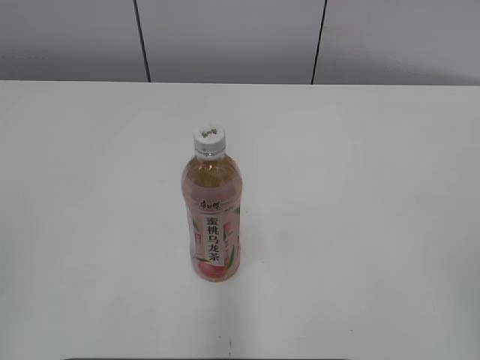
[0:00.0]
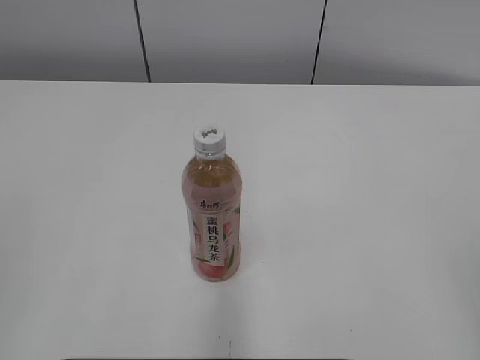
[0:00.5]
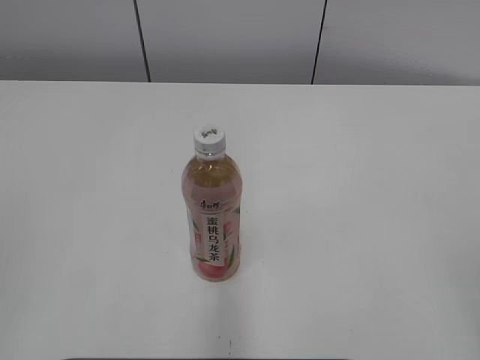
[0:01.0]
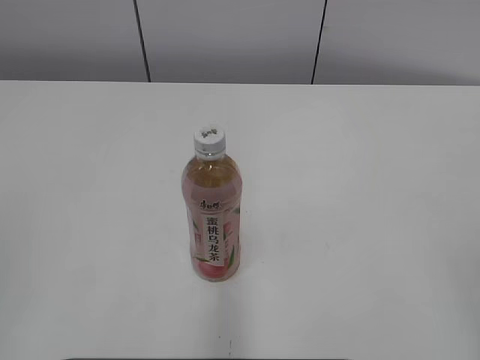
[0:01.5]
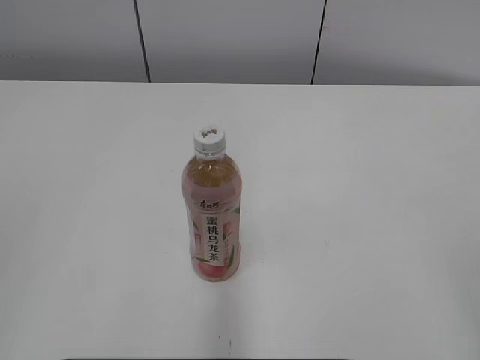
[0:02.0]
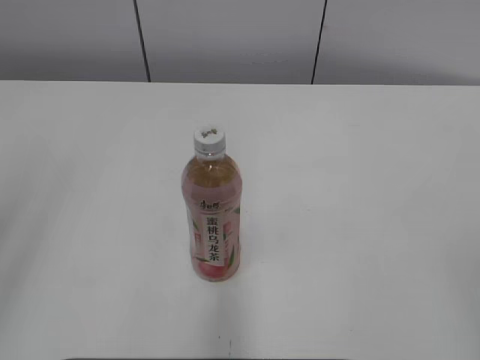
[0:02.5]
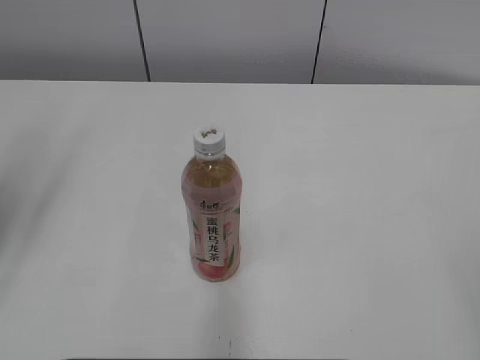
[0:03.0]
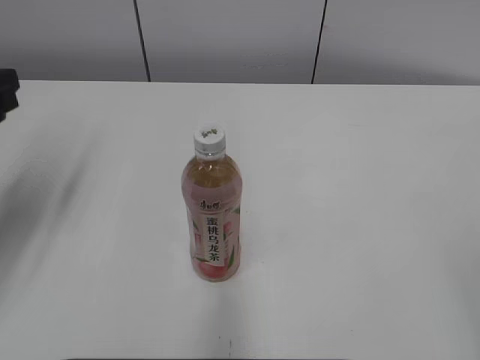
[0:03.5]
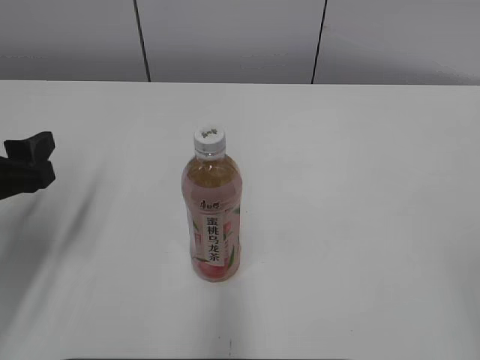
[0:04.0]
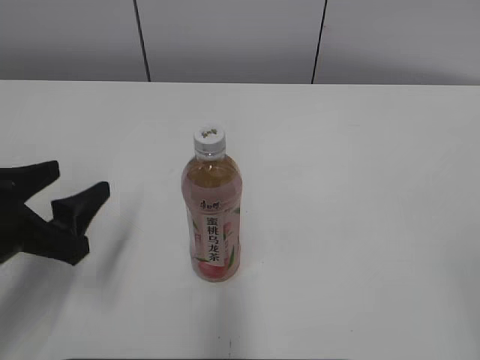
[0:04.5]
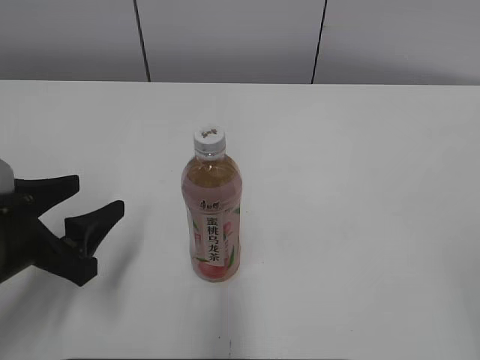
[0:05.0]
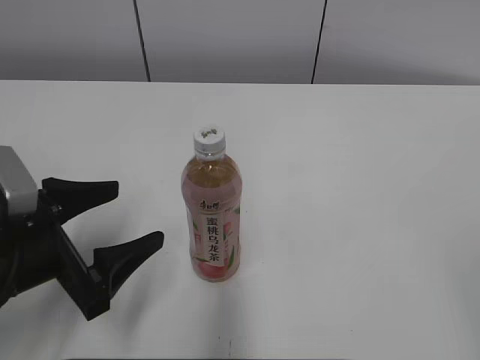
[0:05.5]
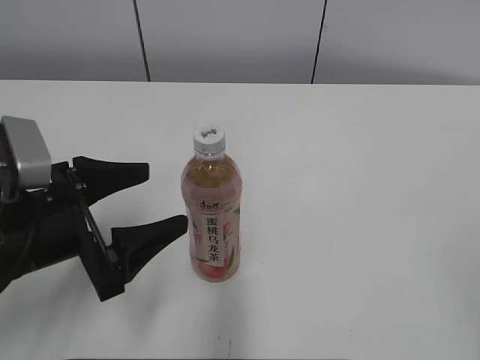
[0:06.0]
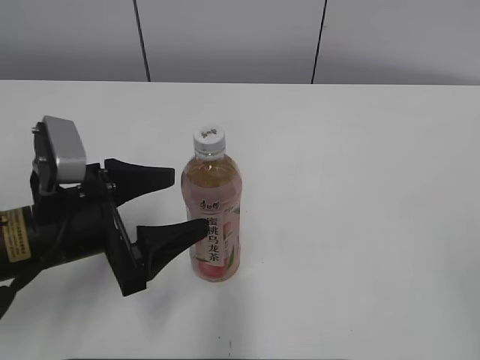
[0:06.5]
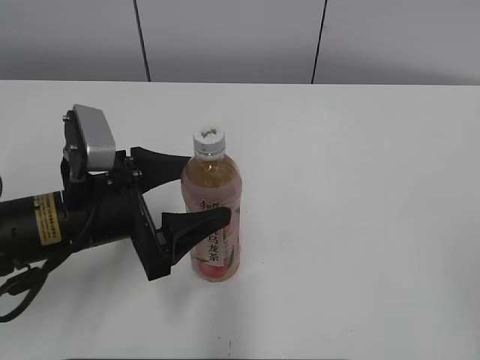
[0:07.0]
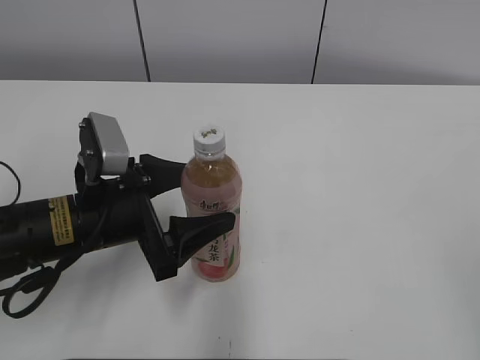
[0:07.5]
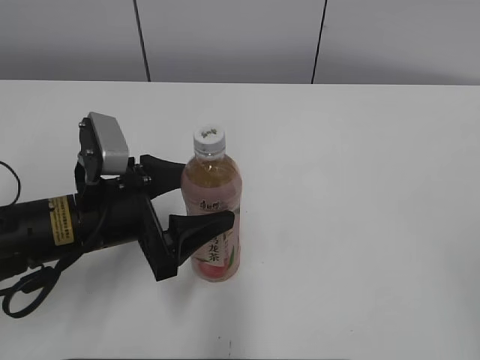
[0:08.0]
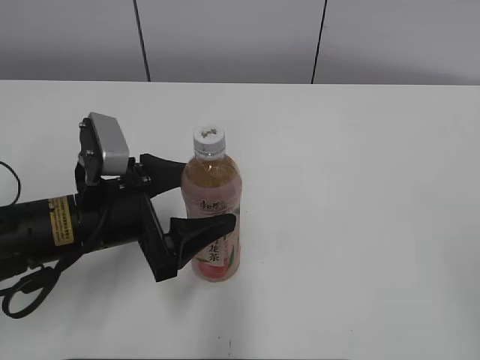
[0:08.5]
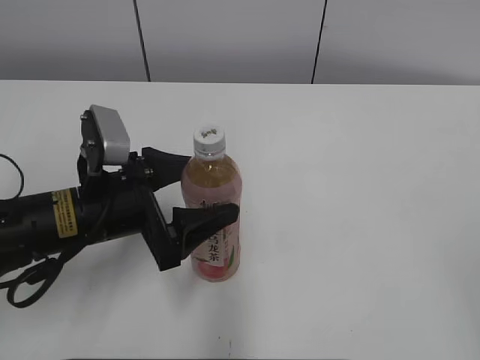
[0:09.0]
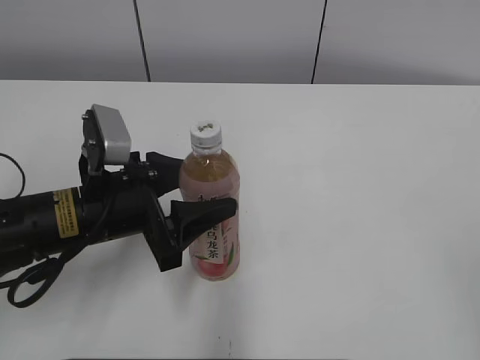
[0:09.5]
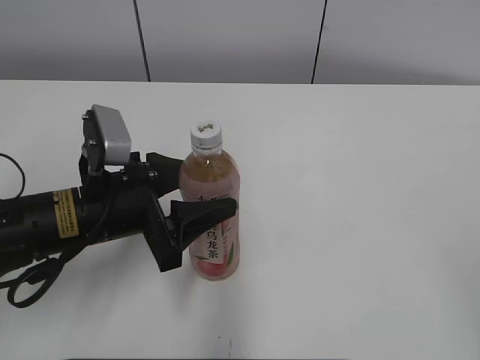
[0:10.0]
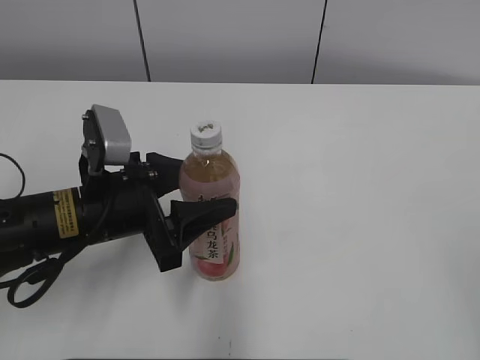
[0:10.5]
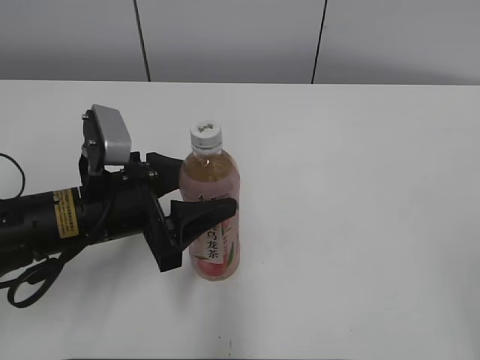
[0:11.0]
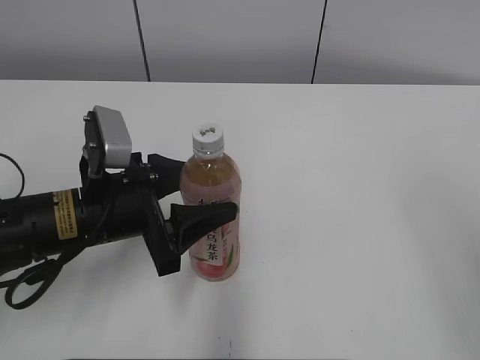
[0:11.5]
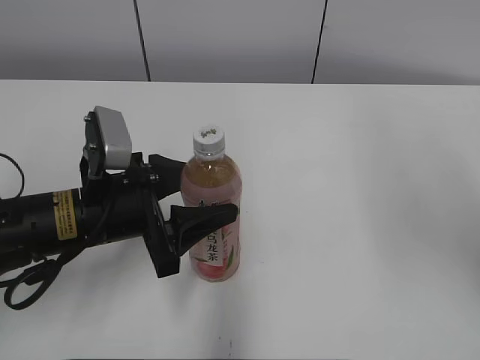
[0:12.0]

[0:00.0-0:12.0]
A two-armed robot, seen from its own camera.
Step, 0:00.0 to 0:09.5: Grab the Peach Oolong Tea with the left hand.
0:02.0 to 0:04.0: The left gripper goes some 25 cm forward and downward, and opens its fingers.
0:04.0 to 0:06.0: The left gripper heads to the right, covering approximately 5 cm.
0:06.0 to 0:08.0: The left gripper shifts by roughly 5 cm.
0:08.0 to 0:10.0: The two grippers keep their place.
0:10.0 to 0:12.0: The right gripper heads forward and upward, covering some 20 cm.

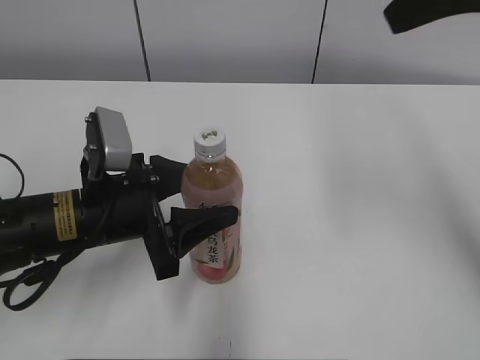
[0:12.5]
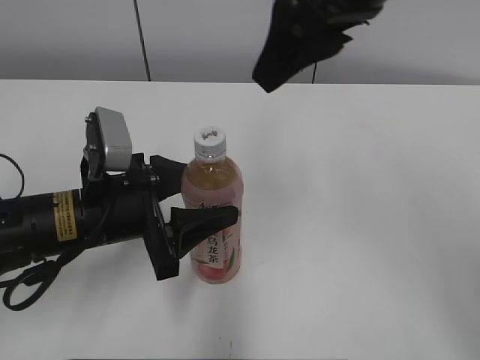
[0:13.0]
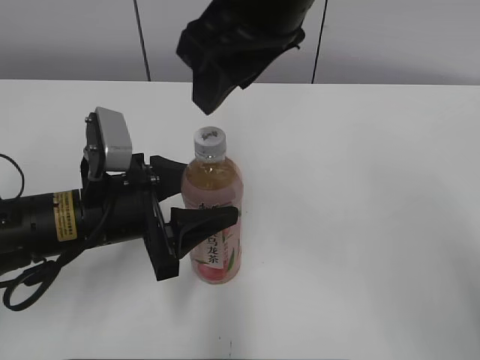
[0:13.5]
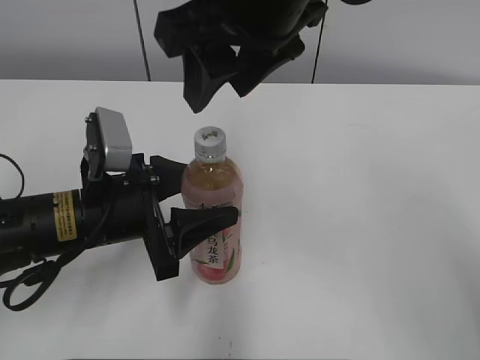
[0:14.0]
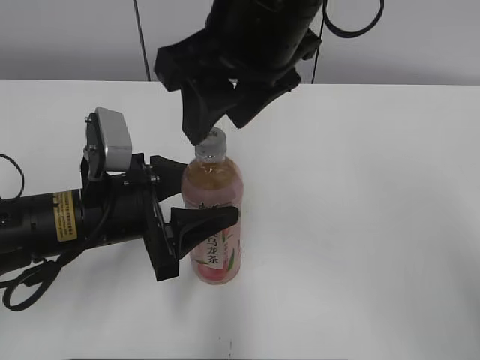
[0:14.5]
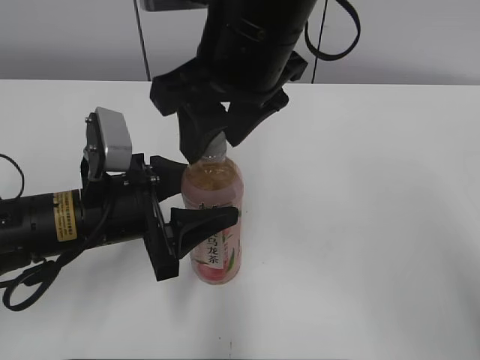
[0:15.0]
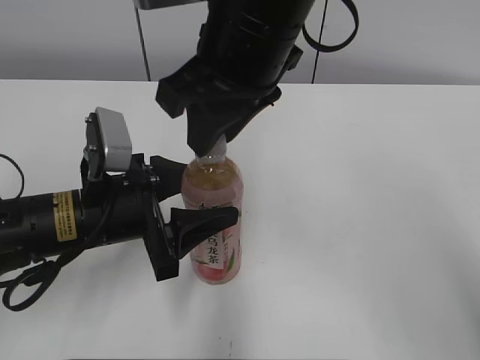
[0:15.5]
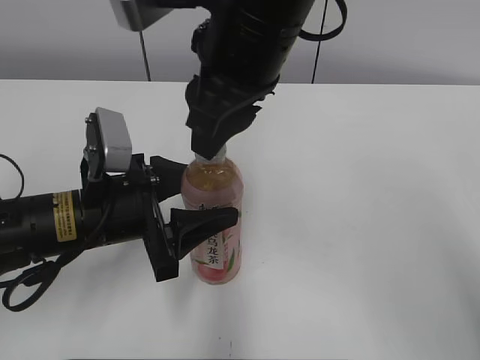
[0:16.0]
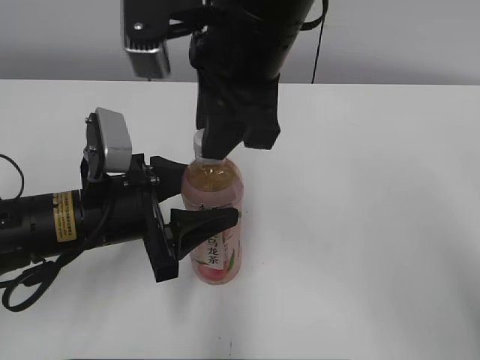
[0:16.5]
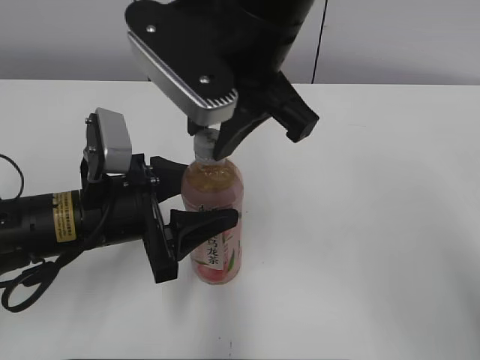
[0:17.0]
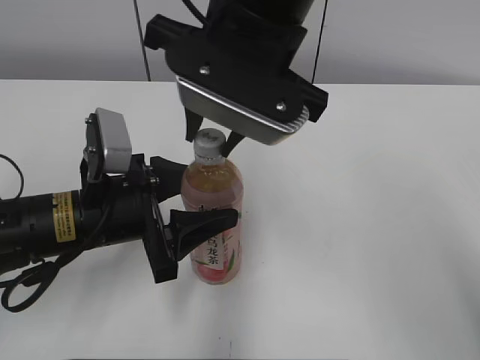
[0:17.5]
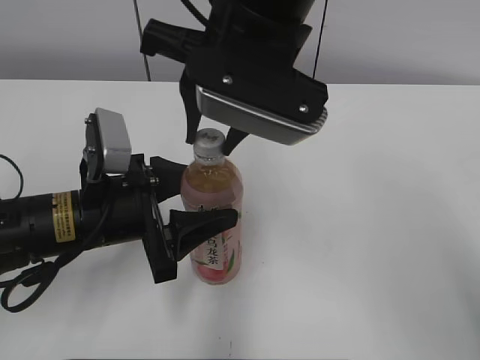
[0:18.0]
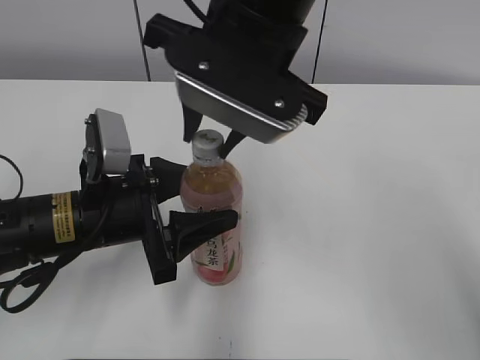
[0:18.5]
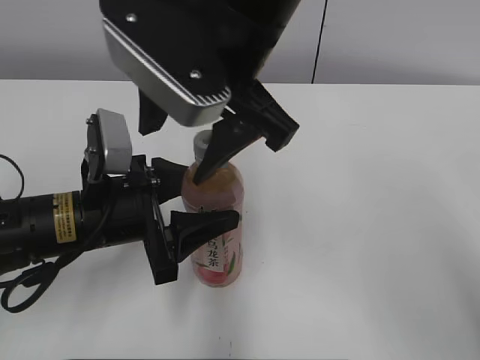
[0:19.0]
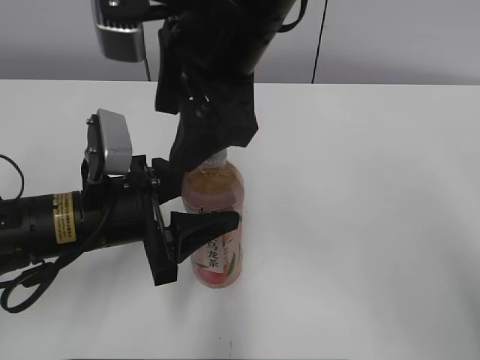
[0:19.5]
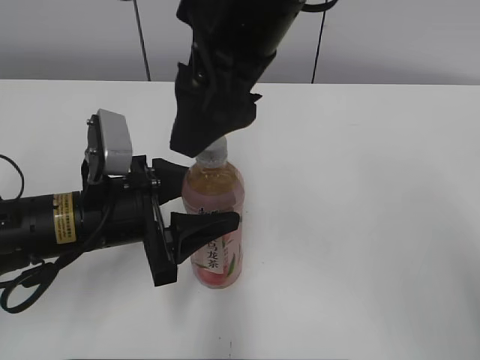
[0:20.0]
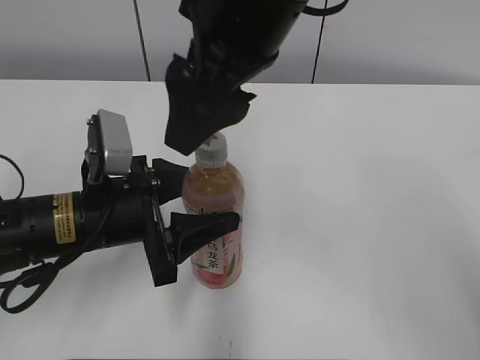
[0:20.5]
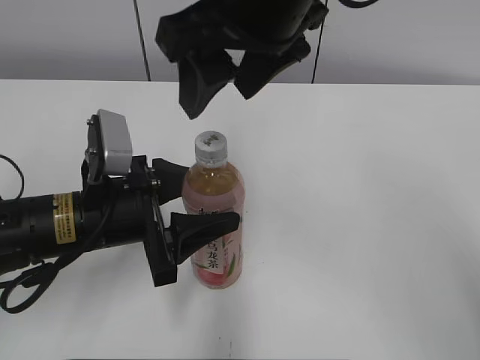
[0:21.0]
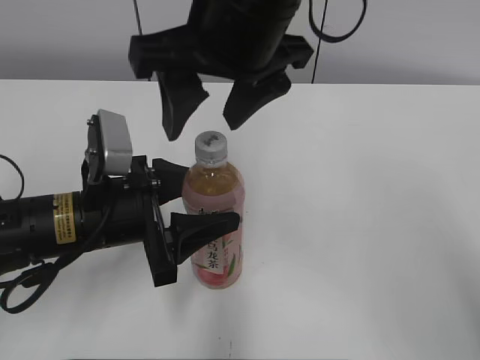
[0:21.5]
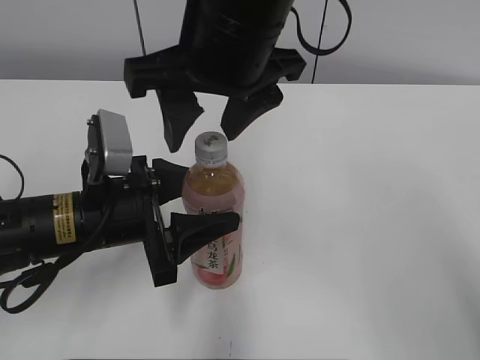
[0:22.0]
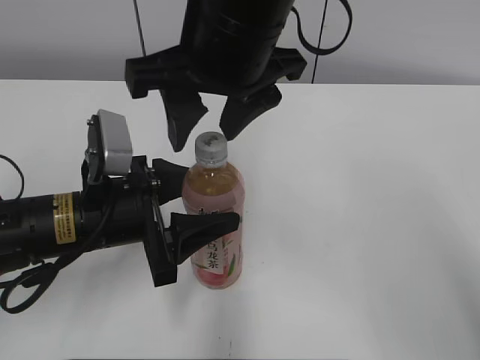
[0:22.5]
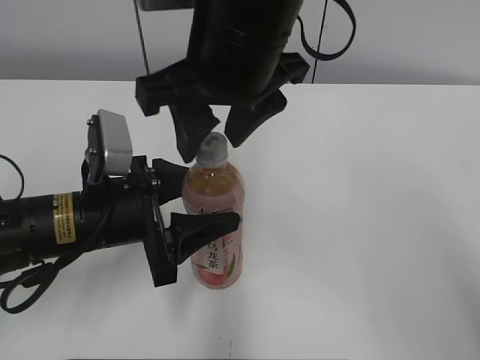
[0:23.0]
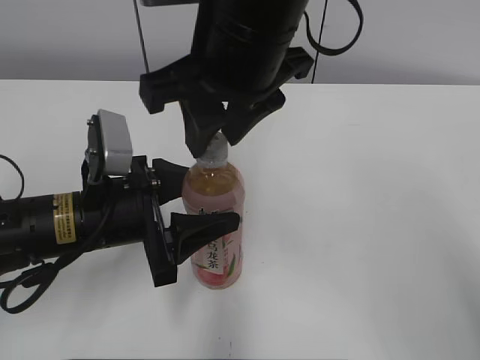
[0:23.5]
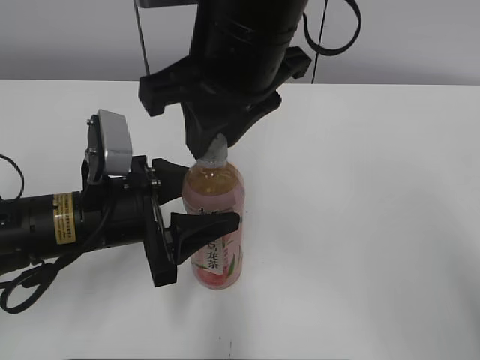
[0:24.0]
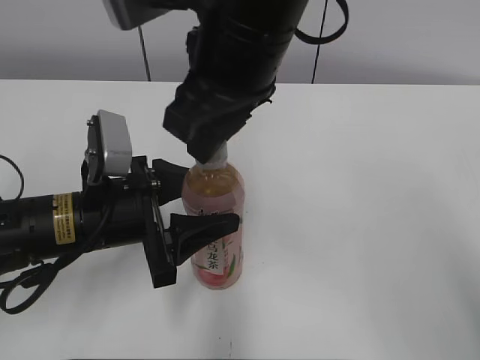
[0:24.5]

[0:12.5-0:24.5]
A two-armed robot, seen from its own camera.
0:12.5 to 0:14.5: The right gripper goes some 20 cm to the left.
0:14.5 to 0:16.5: The right gripper closes its fingers.
0:18.5 to 0:20.5: The right gripper opens its fingers.
0:22.5 to 0:24.5: The right gripper closes.

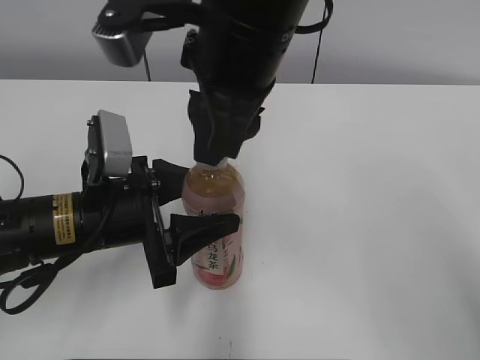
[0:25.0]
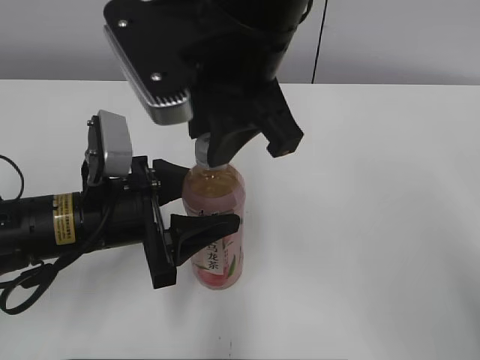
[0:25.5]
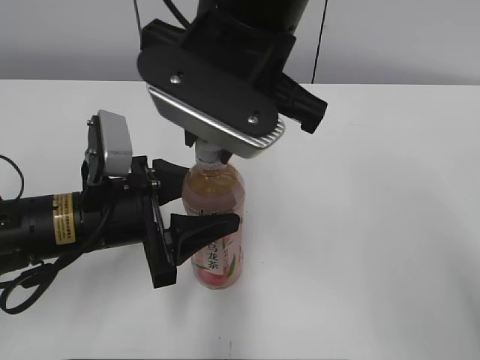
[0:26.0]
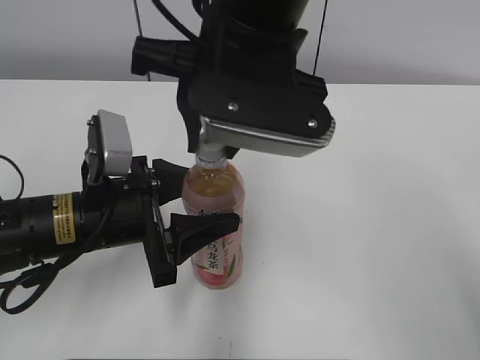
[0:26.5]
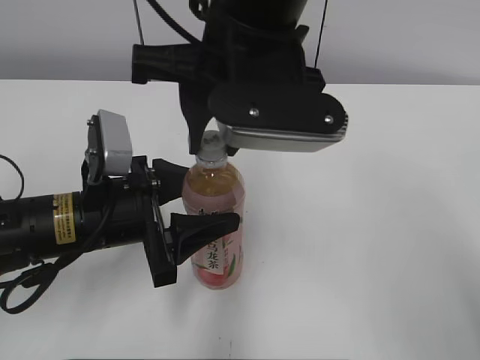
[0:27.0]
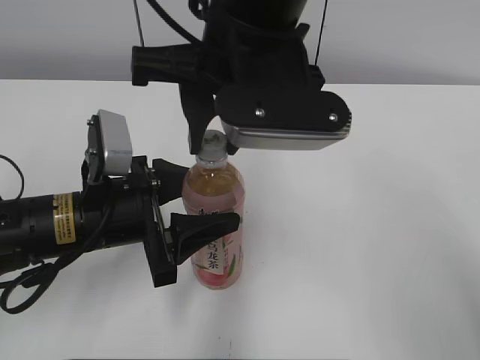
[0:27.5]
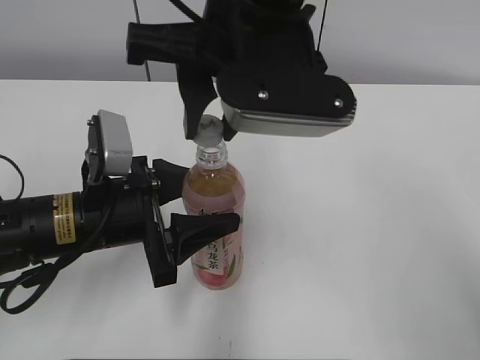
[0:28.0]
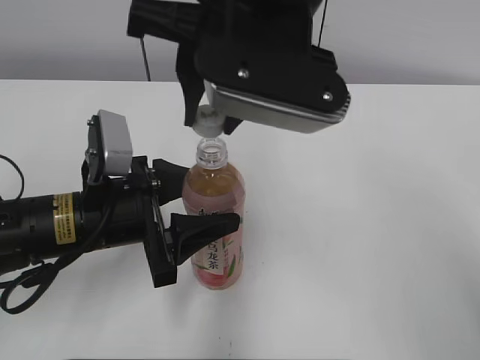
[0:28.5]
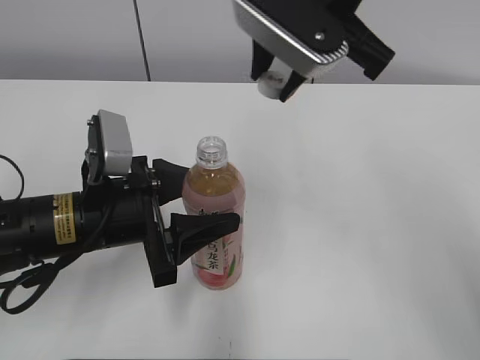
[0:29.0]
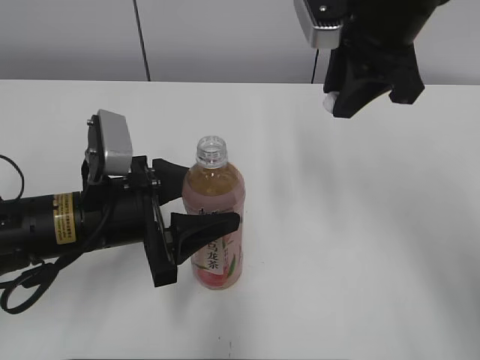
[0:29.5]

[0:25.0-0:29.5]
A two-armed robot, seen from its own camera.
0:27.0 to 0:29.5: The right gripper shifts some 15 cm to the right and forward.
